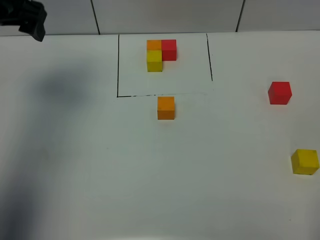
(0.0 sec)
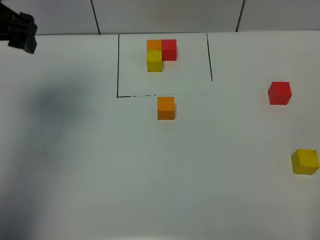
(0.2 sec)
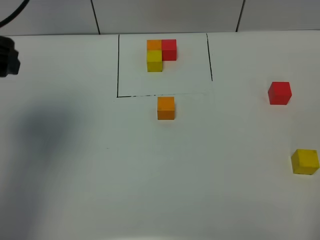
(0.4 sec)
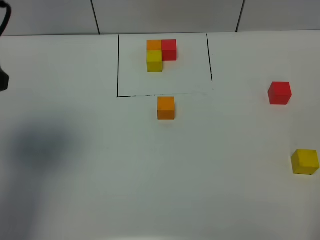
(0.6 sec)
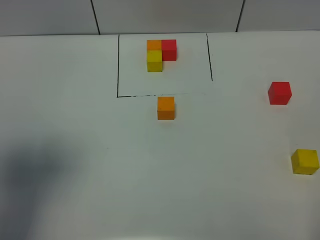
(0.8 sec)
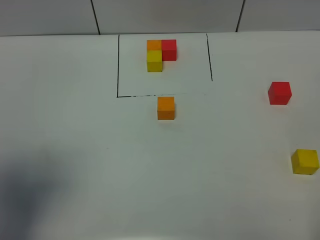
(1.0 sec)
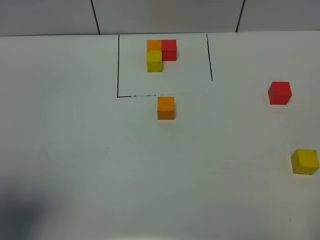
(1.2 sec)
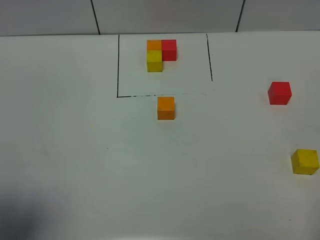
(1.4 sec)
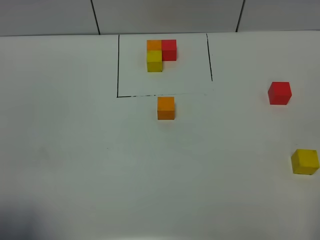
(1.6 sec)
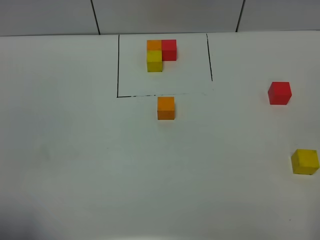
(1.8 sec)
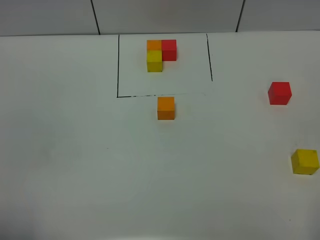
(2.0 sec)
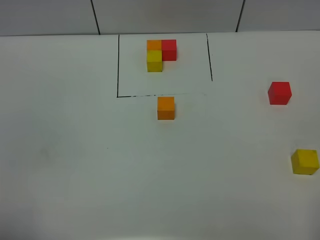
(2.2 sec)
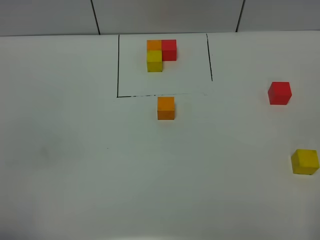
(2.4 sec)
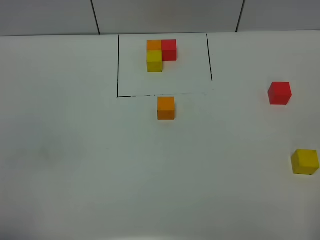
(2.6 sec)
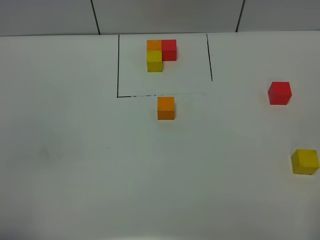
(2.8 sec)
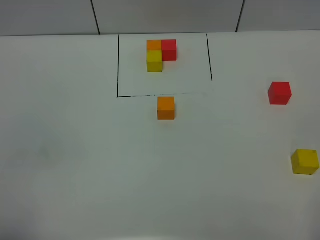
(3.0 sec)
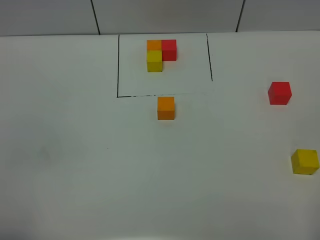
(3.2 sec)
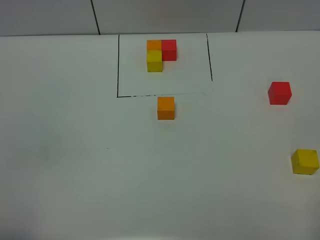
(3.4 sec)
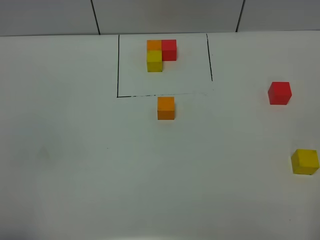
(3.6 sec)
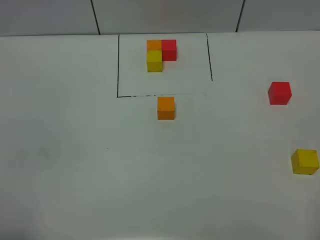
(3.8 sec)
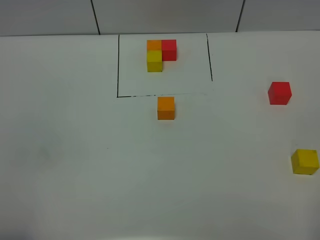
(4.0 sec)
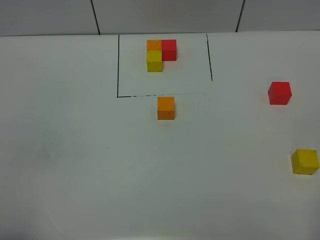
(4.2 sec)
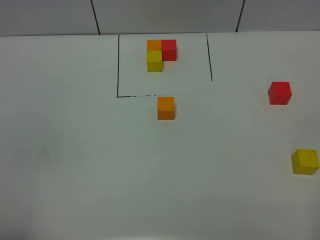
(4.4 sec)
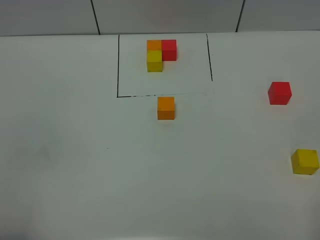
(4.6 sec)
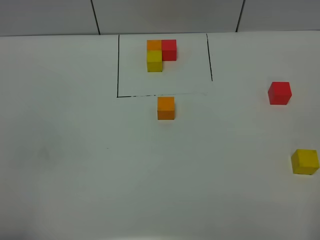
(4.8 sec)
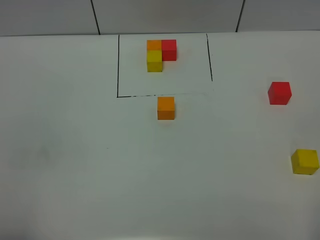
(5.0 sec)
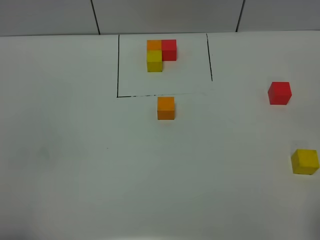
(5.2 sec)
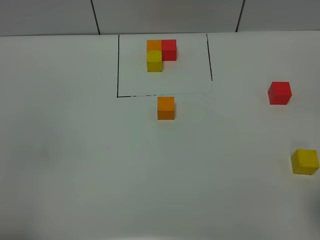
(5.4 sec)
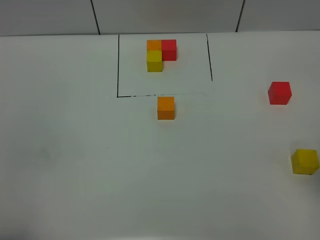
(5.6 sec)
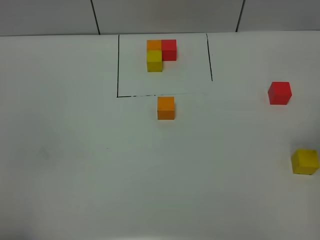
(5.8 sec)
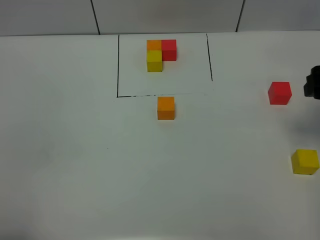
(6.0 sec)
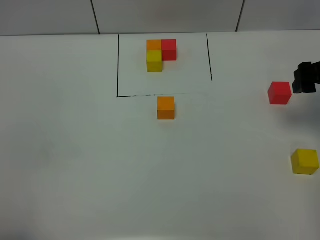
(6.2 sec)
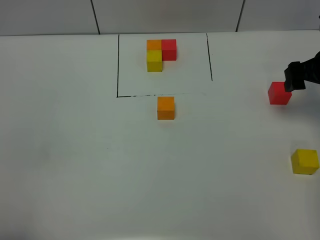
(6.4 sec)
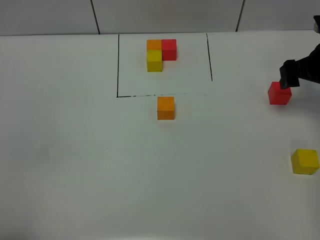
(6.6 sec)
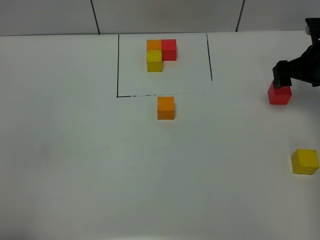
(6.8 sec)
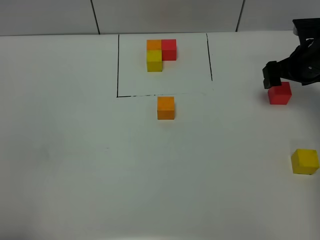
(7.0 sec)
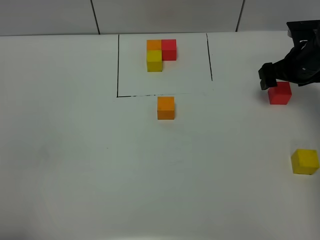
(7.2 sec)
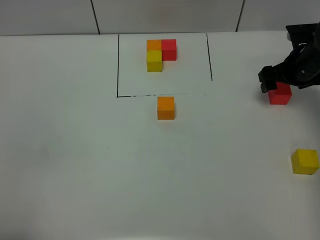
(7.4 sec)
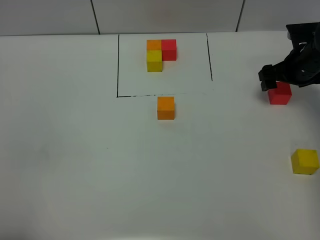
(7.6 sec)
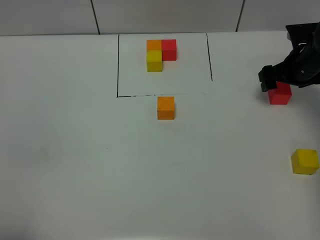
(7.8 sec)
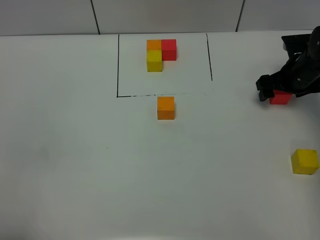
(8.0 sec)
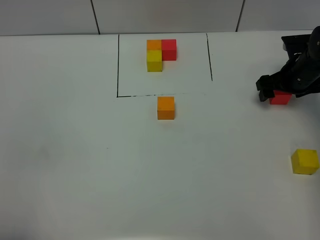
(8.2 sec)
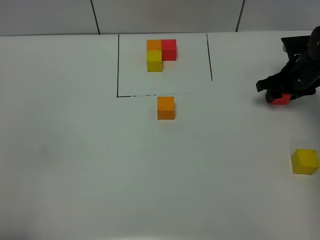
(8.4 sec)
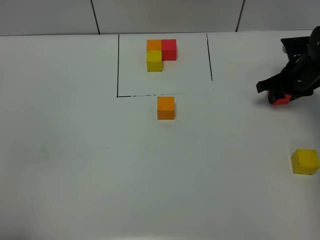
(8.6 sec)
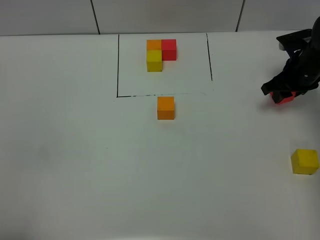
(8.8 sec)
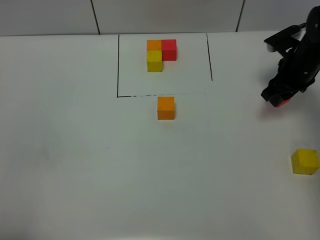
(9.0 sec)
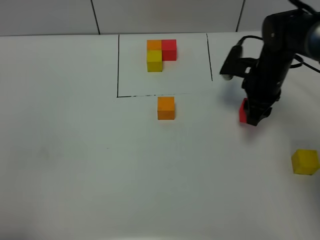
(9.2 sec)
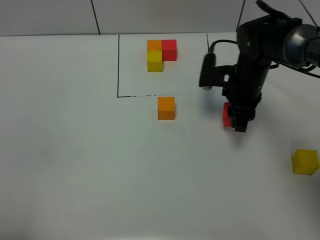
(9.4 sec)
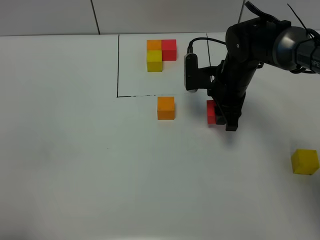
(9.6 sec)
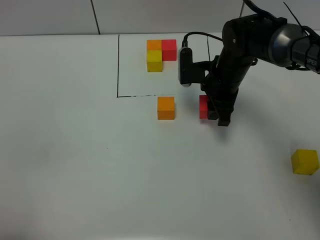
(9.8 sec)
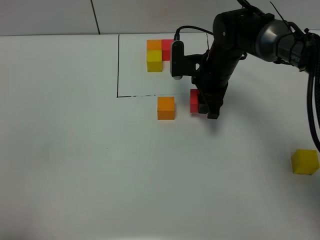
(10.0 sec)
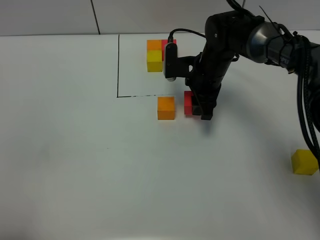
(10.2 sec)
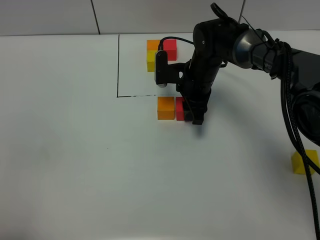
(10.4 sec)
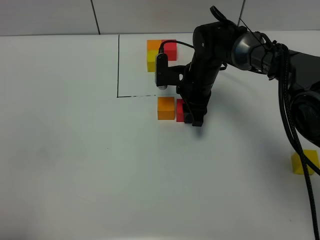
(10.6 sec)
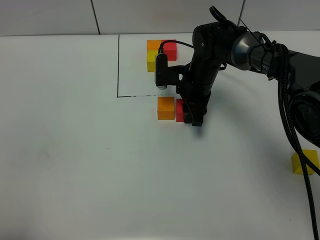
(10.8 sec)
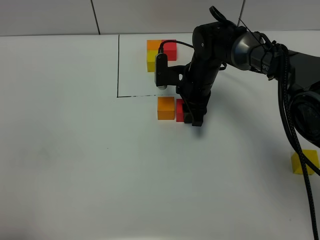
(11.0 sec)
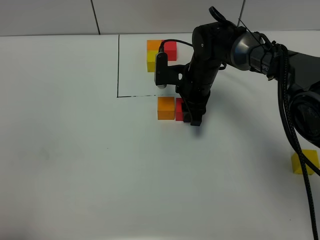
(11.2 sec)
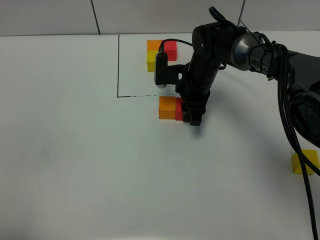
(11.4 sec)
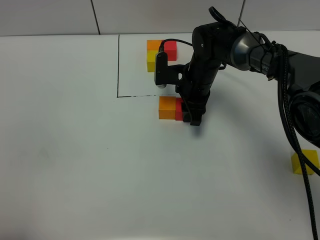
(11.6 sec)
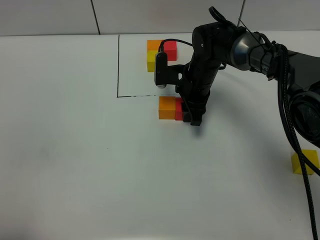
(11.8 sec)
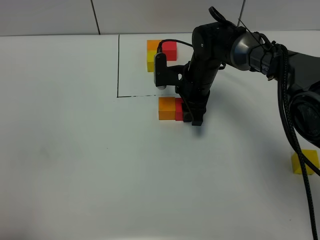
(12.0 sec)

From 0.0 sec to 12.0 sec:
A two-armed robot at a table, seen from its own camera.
Task of the whole recording: According to the building block template in front, assemble the scattered blocks together.
From 0.0 sec to 1.6 sec: The left gripper heads backward, covering approximately 35 cm.
From 1.6 sec to 3.0 sec: The left gripper moves some 5 cm, and closes its fingers.
From 4.4 sec to 6.0 sec: The right gripper goes roughly 30 cm forward.
From 6.0 sec to 7.6 sec: The right gripper heads forward and downward, covering roughly 15 cm.
From 7.6 sec to 9.0 sec: The right gripper closes up.
From 9.0 sec to 10.4 sec: The right gripper travels to the left by approximately 20 cm.
From 10.4 sec to 12.0 sec: Both grippers stay put.

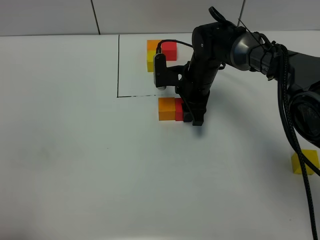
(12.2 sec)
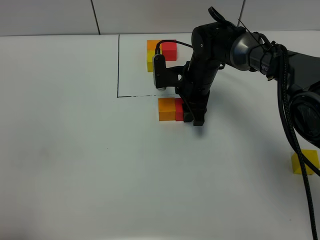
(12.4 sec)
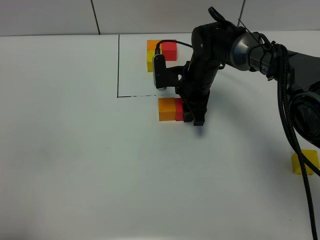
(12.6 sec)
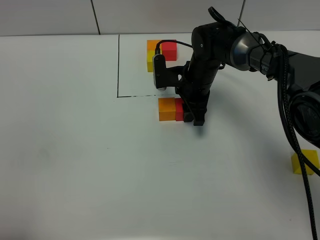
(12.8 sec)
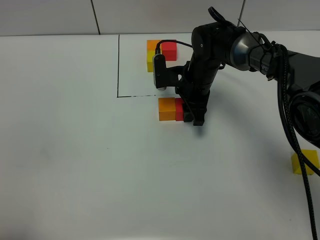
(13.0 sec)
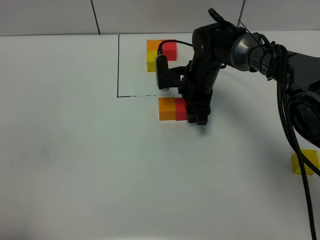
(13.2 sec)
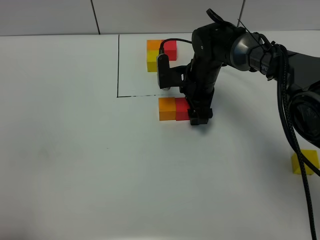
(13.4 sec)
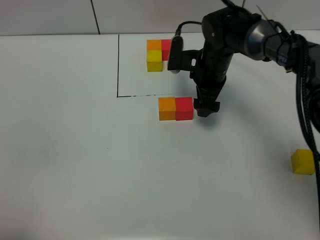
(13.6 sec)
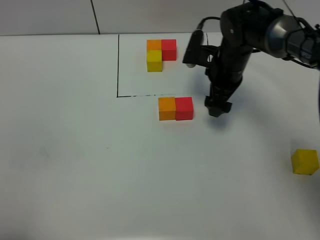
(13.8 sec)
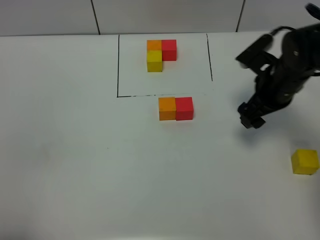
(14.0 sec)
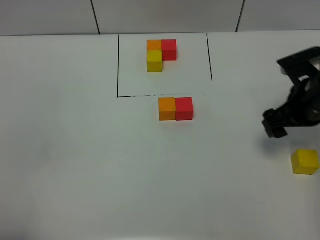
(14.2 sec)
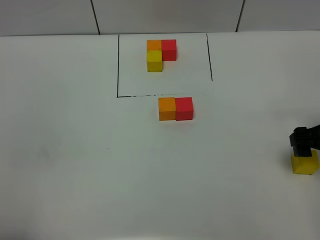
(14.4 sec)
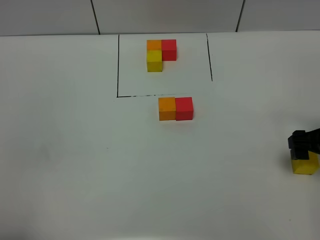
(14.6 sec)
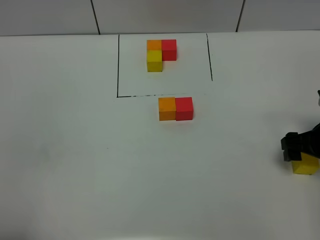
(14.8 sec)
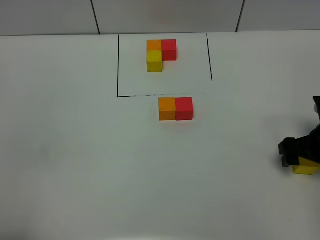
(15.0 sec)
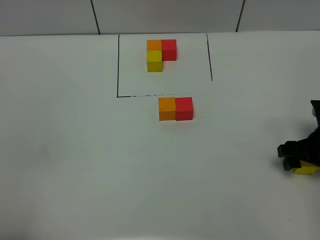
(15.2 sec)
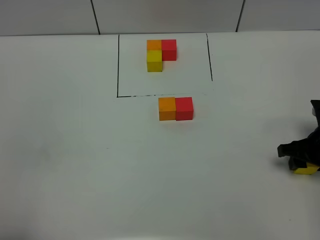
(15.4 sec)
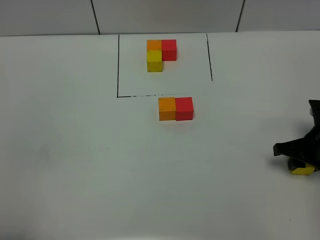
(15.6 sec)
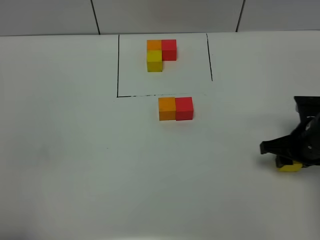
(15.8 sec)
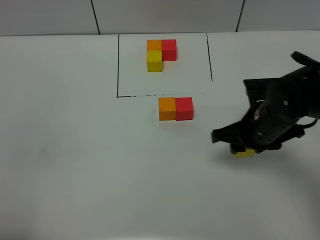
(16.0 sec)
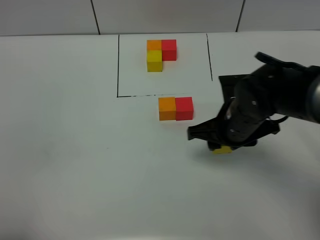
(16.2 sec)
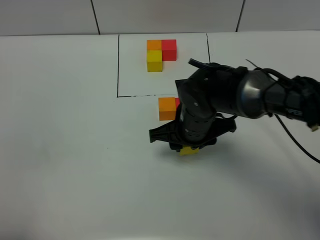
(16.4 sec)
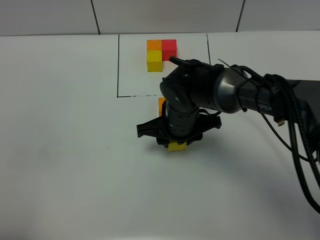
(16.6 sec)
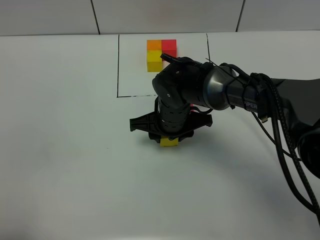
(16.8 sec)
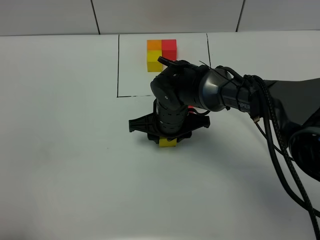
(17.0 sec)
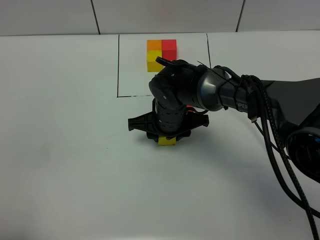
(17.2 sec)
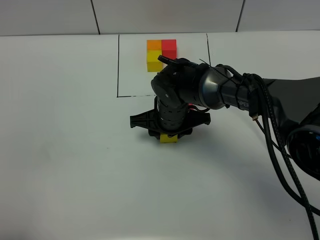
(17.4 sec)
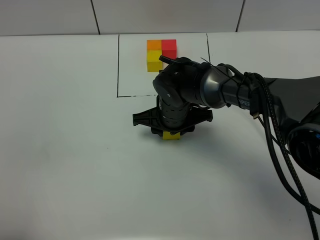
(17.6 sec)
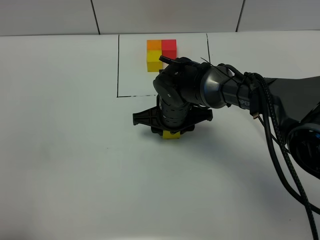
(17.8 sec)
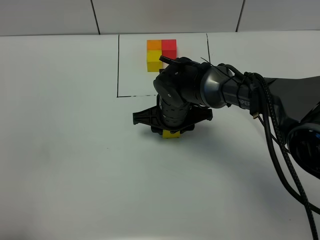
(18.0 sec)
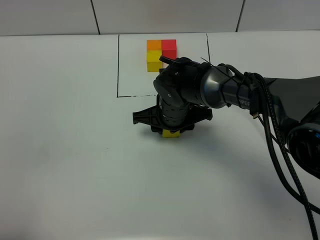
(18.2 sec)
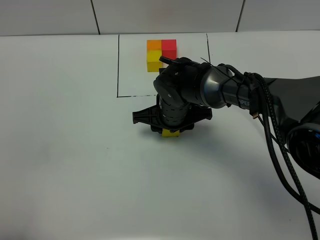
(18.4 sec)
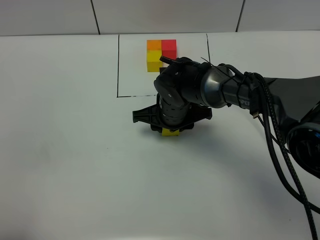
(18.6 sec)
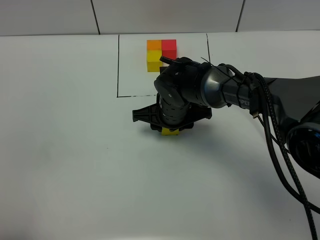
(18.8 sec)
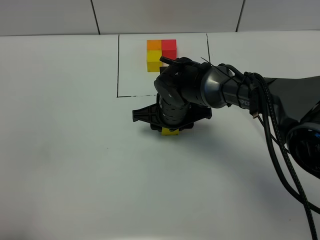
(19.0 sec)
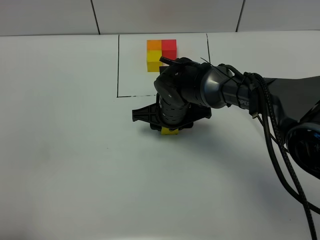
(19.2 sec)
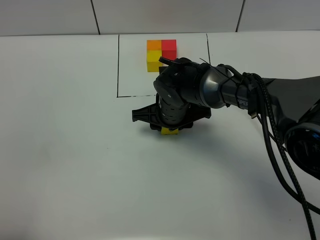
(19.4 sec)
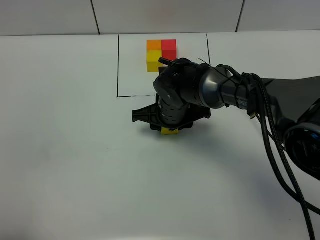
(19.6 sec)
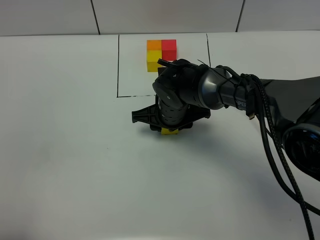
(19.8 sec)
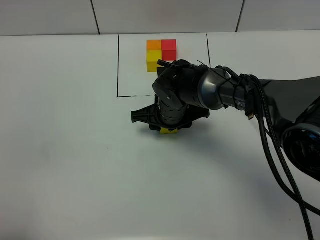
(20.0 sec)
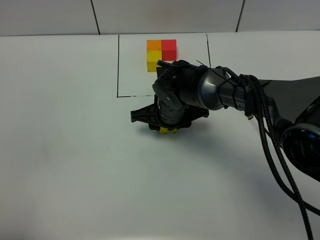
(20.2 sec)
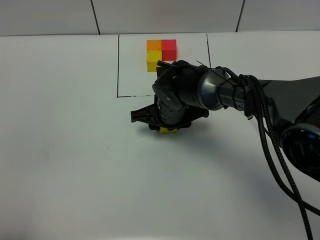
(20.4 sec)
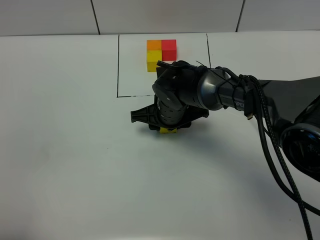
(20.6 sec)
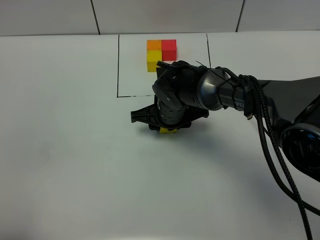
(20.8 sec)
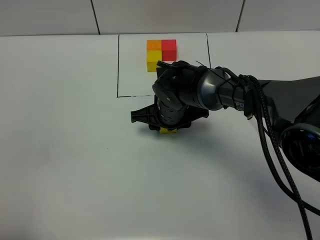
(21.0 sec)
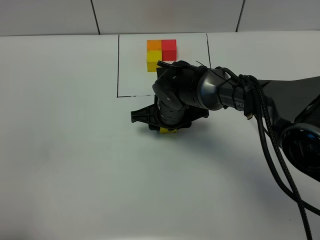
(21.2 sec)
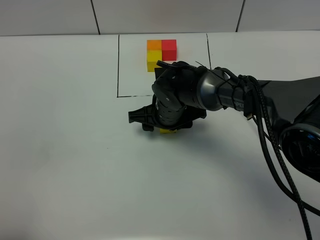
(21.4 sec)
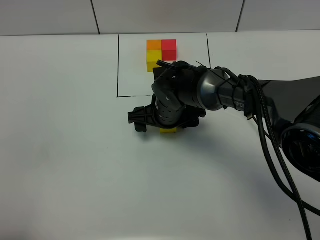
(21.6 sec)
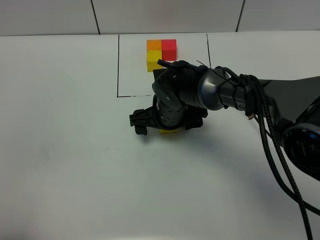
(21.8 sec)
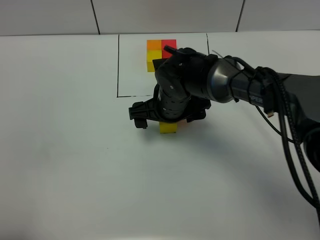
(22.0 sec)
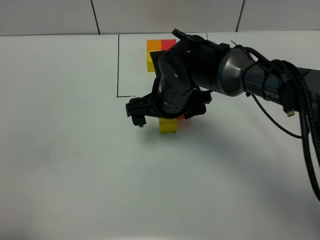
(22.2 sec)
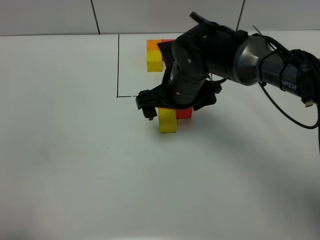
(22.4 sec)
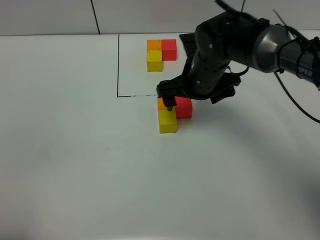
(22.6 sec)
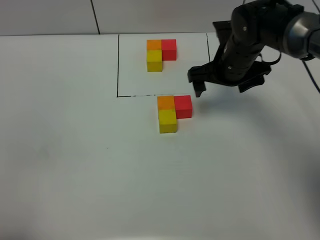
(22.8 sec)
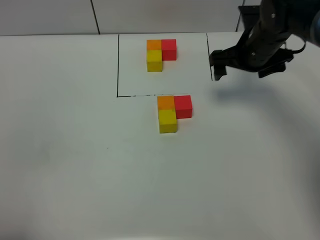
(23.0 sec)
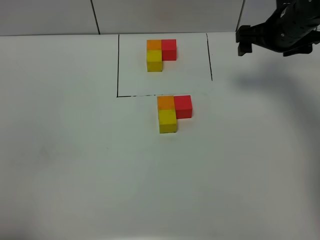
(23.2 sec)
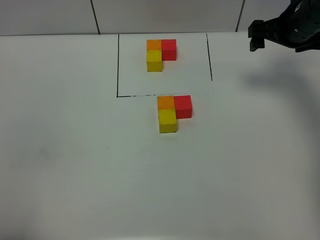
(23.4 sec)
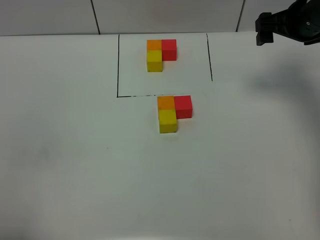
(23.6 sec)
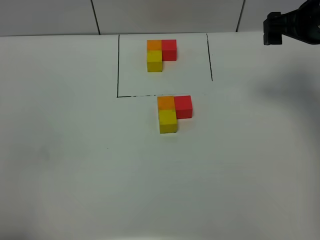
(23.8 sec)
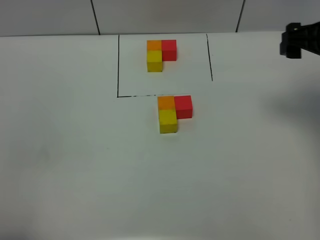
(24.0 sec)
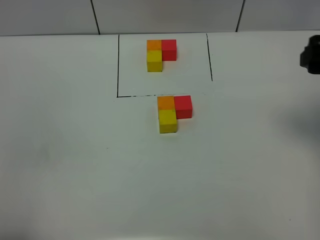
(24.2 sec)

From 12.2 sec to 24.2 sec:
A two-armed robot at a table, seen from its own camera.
Task of the whole recording: According to the building block template in front, assemble the scattered blocks together.
Step, from 13.4 sec to 21.8 sec: Put the yellow build block on the behind of the orange build block.
From 12.2 sec to 13.8 sec: The right gripper goes roughly 5 cm to the right, and opens up.
From 13.8 sec to 15.2 sec: The right gripper moves to the right and backward, some 20 cm.
From 15.2 sec to 16.6 sec: The right gripper moves to the left, some 25 cm, and closes its fingers.
From 16.6 sec to 18.2 sec: The grippers make only small movements.
From 18.2 sec to 21.2 sec: Both grippers stay about where they are.
From 21.2 sec to 22.6 sec: The right gripper is displaced upward and to the right by roughly 10 cm, and opens.
From 22.6 sec to 24.2 sec: The right gripper is displaced to the right, upward and backward by about 25 cm.
